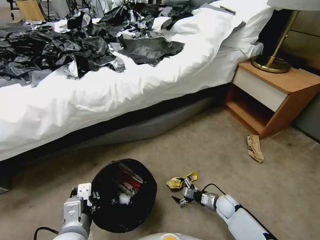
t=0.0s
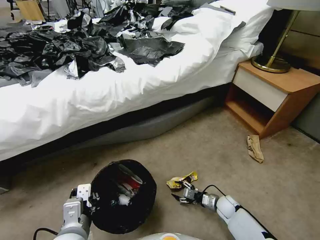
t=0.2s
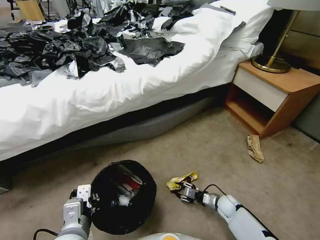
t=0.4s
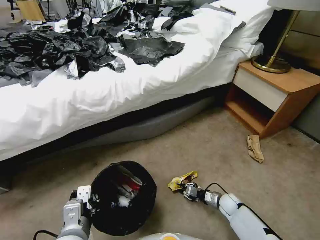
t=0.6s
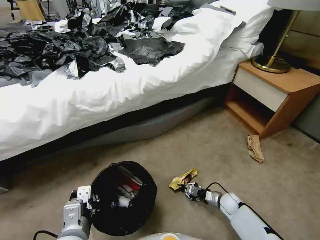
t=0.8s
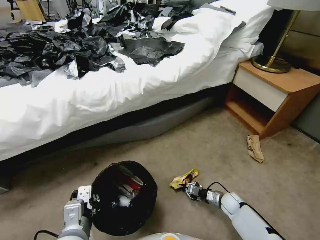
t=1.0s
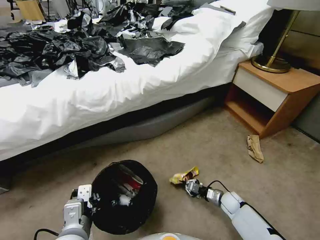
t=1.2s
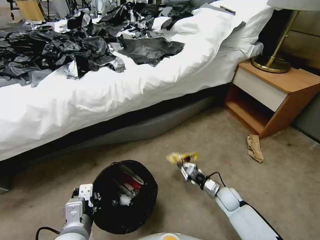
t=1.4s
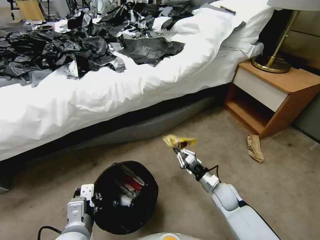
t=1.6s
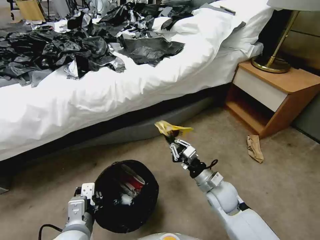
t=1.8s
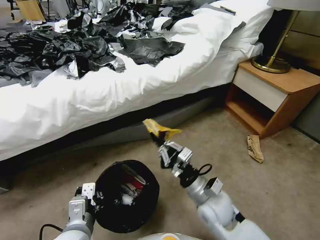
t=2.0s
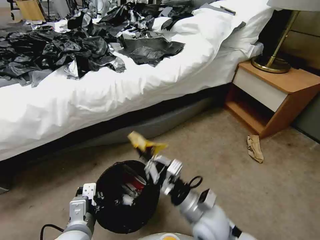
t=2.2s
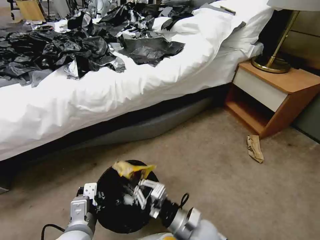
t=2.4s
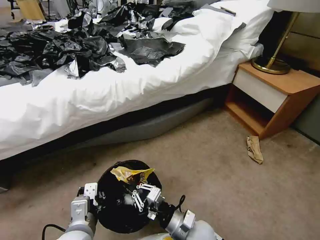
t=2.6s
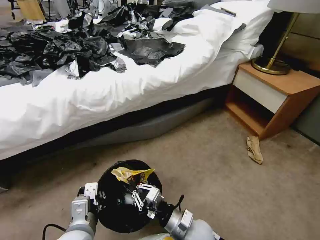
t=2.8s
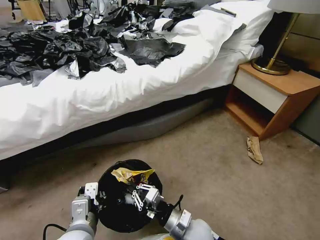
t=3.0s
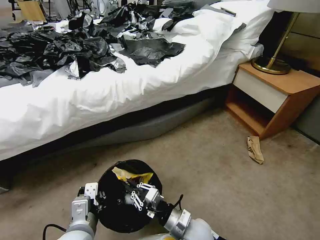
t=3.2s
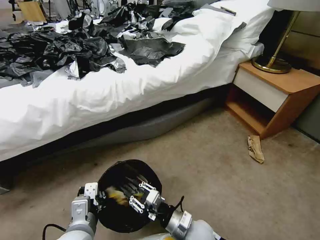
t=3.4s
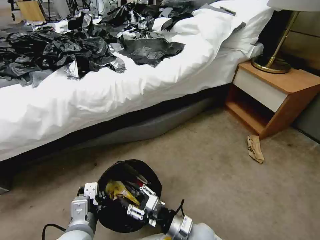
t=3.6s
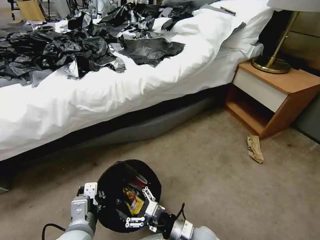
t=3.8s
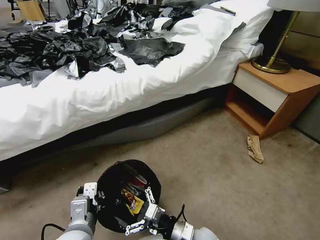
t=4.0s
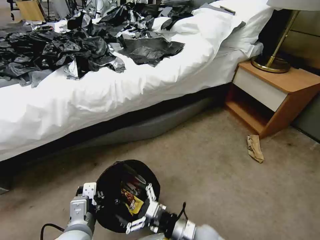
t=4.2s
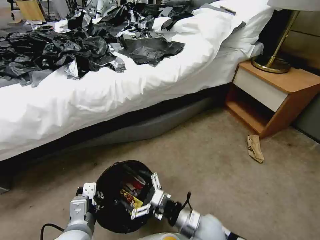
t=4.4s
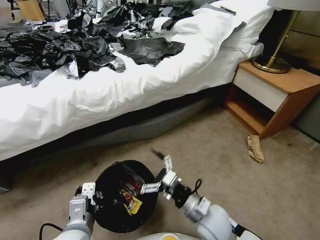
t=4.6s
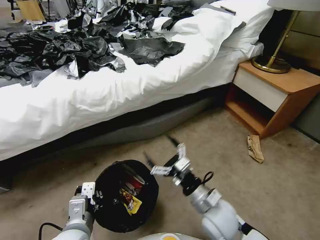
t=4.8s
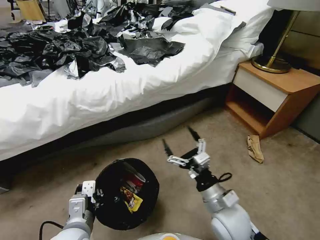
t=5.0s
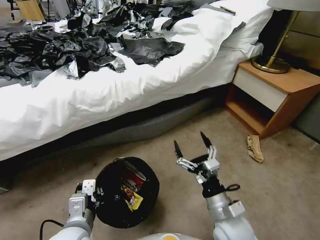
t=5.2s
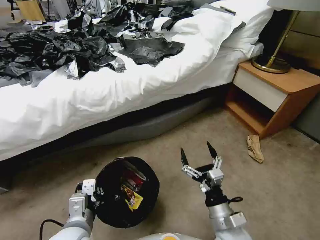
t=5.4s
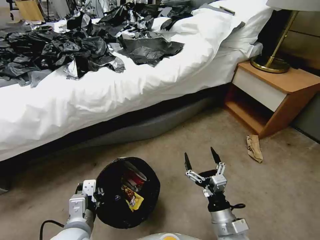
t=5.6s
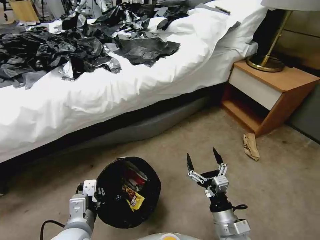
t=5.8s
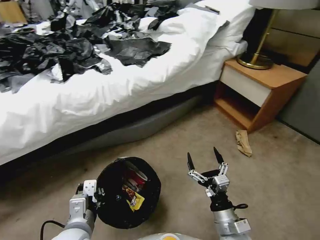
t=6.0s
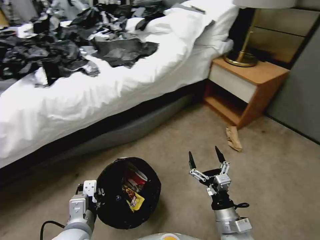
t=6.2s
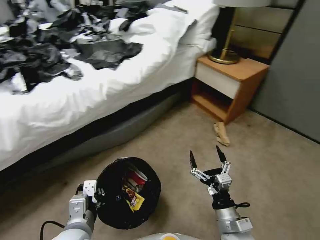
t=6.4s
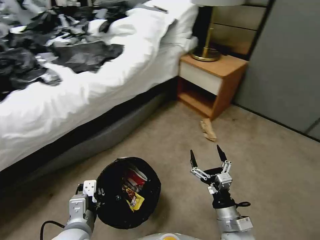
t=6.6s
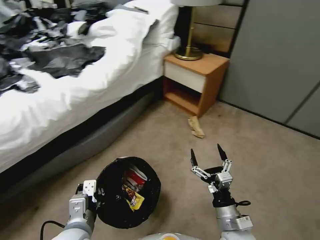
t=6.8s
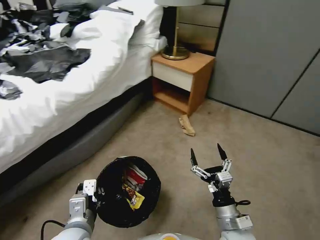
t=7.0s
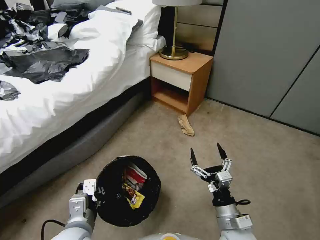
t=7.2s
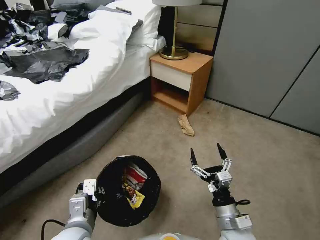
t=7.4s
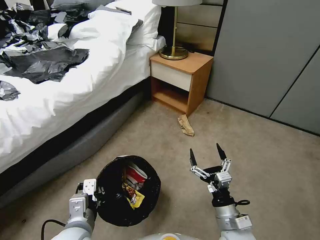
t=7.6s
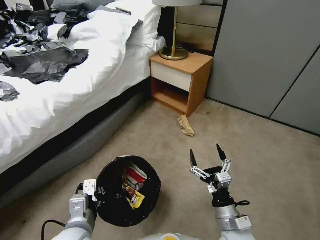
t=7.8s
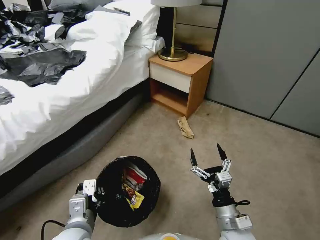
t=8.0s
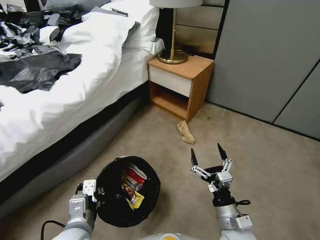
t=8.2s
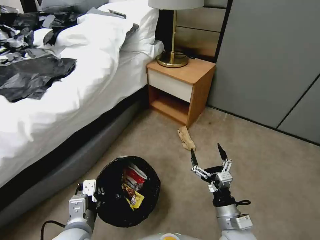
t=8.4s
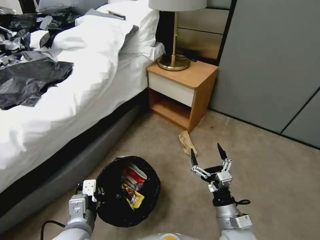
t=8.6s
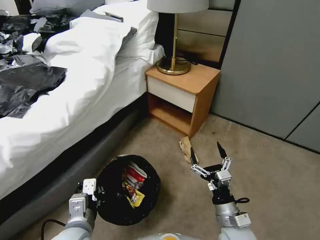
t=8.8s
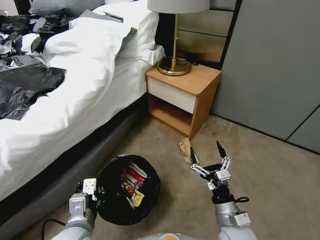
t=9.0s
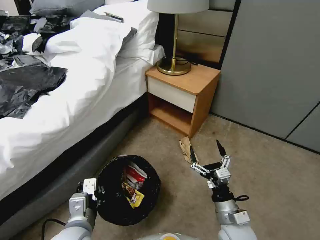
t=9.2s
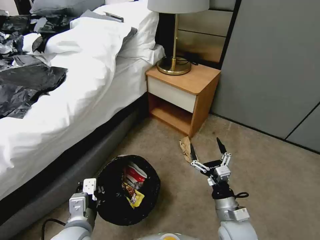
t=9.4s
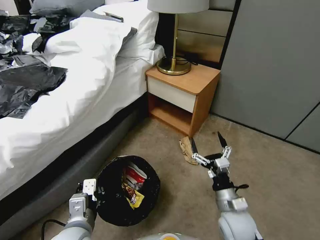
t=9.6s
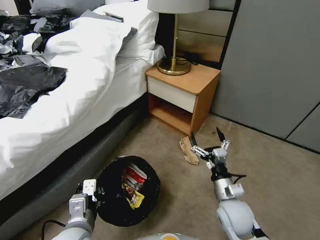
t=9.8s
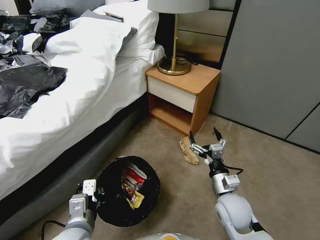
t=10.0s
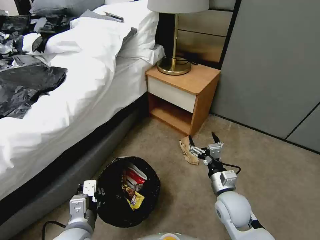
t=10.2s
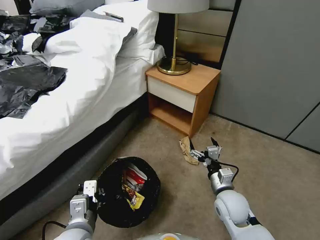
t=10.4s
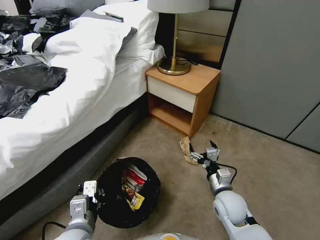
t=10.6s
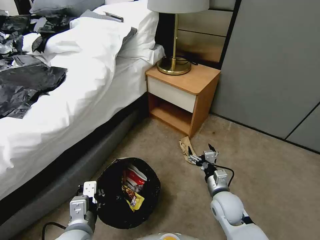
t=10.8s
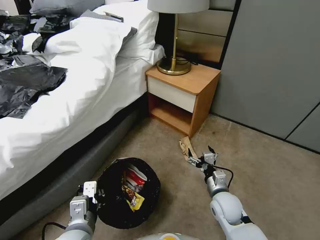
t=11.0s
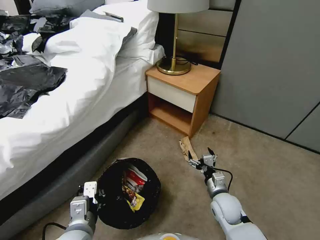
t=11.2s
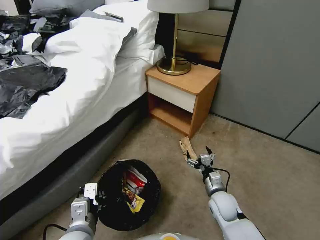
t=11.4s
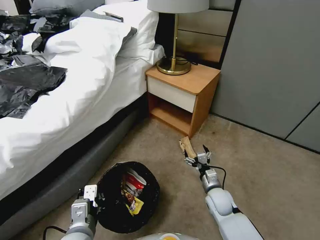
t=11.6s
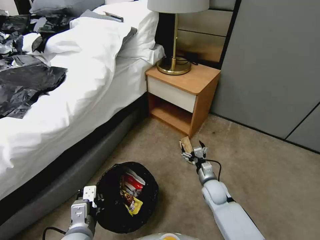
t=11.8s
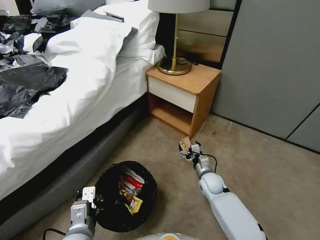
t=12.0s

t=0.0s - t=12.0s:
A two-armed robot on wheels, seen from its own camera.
Task of the whole recording: Pick up the trash bin, then pick up the garbage from the floor and place it into the trash bin.
t=0.0s - t=1.6s: The right gripper travels upward by approximately 10 cm, and closes up.
t=1.6s - t=3.0s: The right gripper travels to the left, backward and upward by approximately 20 cm.
t=3.0s - t=4.4s: The right gripper shifts by roughly 5 cm, and opens.
t=4.4s - t=6.0s: The right gripper shifts some 5 cm to the right.
t=9.0s - t=10.4s: The right gripper is displaced forward by about 10 cm.
t=10.4s - t=12.0s: The right gripper travels downward and forward by about 15 cm.

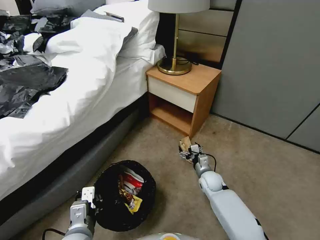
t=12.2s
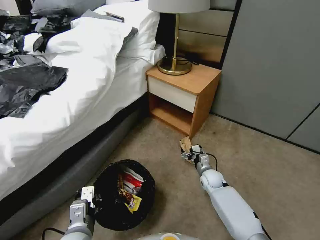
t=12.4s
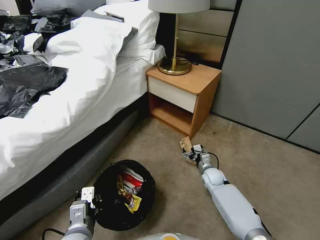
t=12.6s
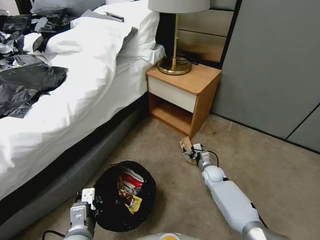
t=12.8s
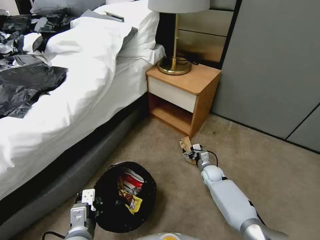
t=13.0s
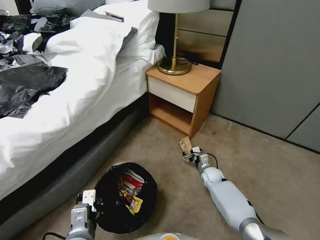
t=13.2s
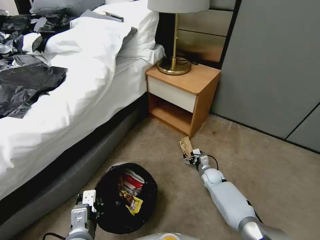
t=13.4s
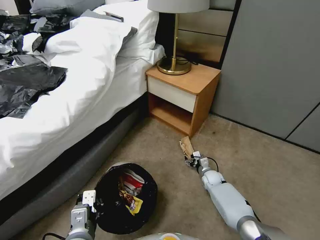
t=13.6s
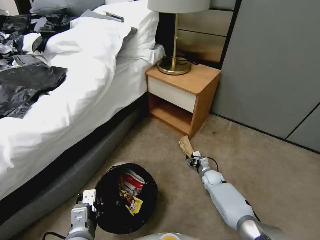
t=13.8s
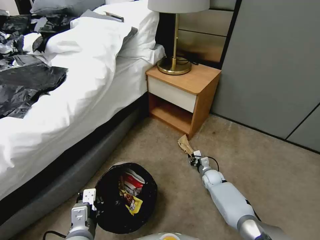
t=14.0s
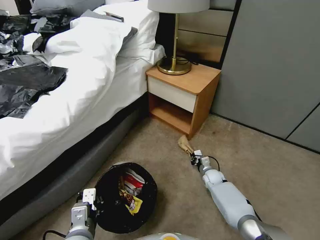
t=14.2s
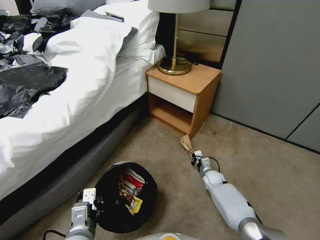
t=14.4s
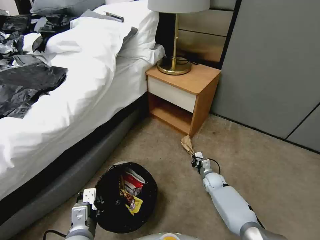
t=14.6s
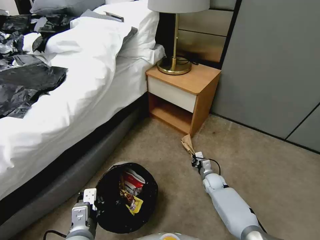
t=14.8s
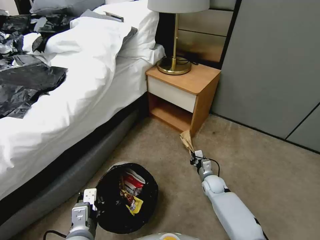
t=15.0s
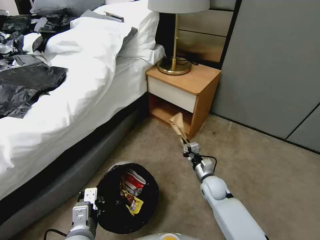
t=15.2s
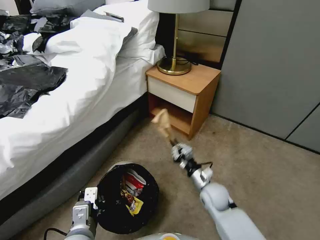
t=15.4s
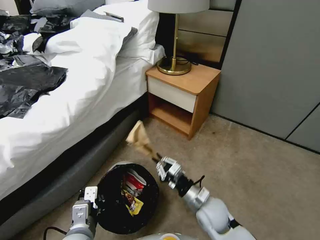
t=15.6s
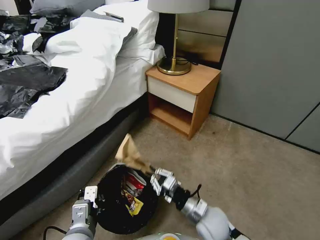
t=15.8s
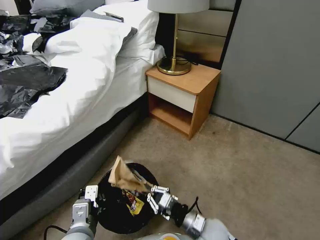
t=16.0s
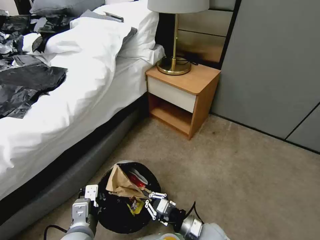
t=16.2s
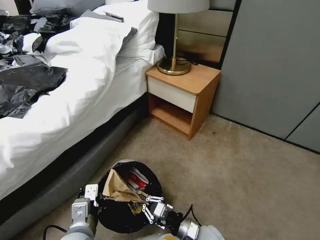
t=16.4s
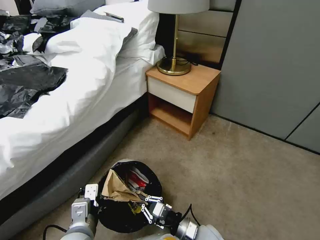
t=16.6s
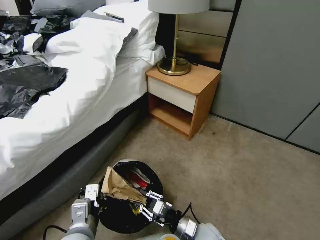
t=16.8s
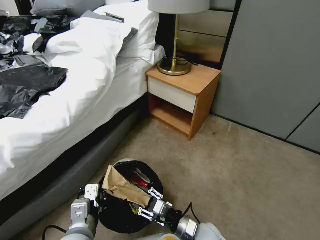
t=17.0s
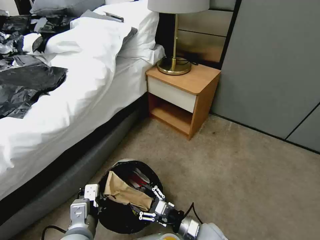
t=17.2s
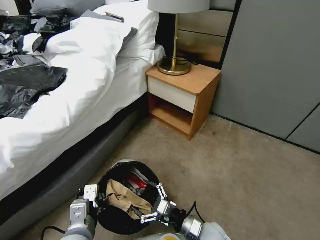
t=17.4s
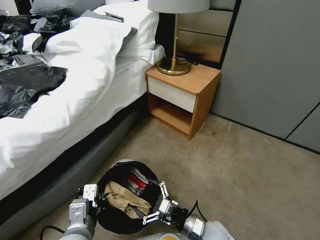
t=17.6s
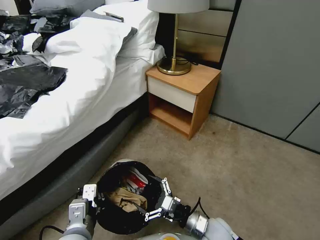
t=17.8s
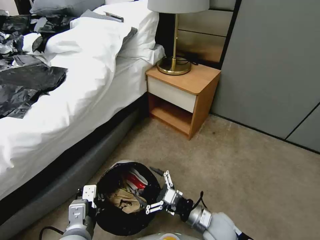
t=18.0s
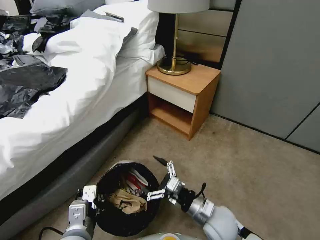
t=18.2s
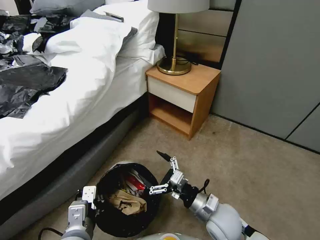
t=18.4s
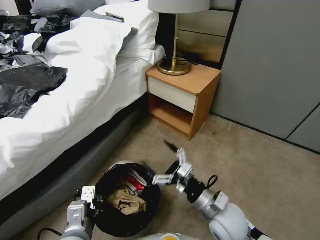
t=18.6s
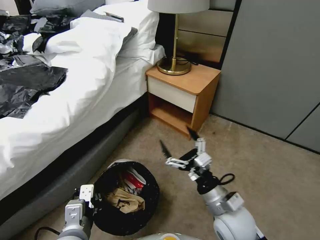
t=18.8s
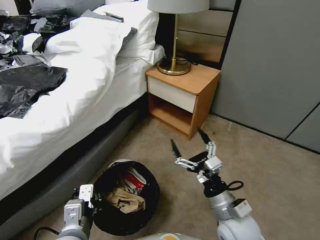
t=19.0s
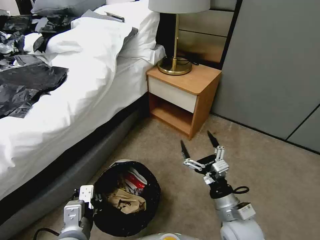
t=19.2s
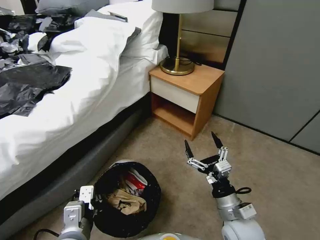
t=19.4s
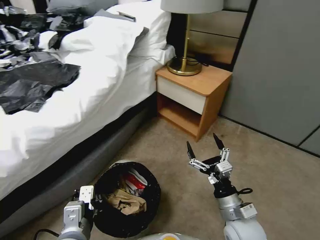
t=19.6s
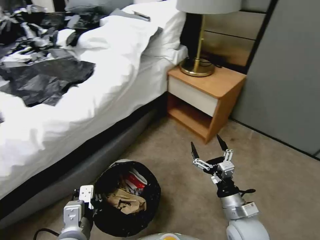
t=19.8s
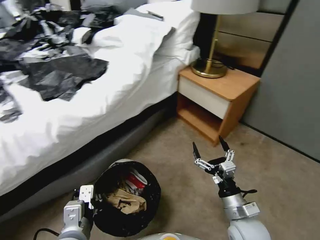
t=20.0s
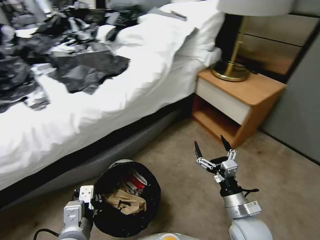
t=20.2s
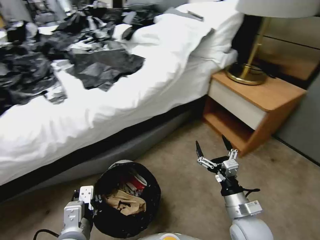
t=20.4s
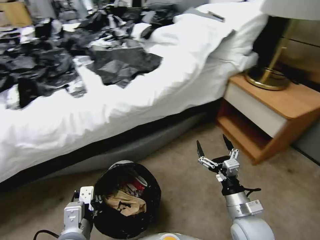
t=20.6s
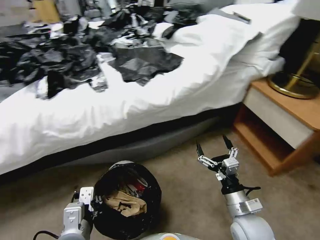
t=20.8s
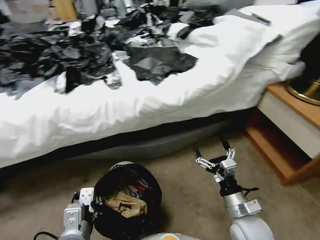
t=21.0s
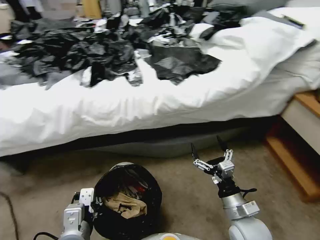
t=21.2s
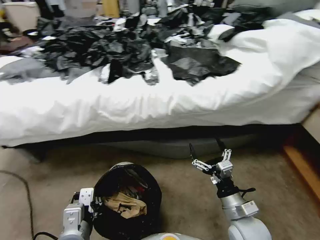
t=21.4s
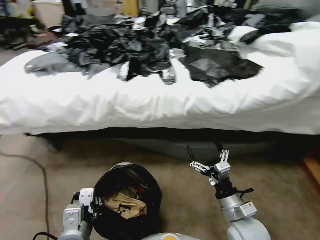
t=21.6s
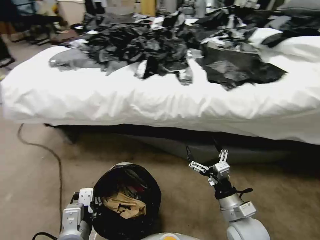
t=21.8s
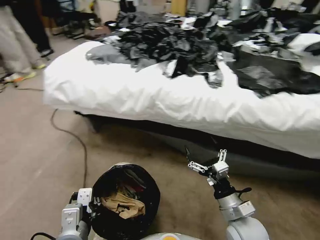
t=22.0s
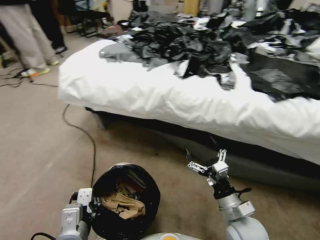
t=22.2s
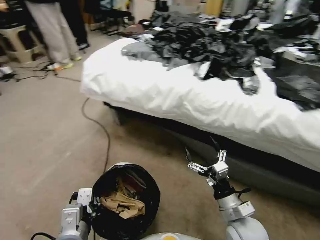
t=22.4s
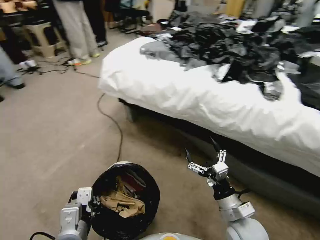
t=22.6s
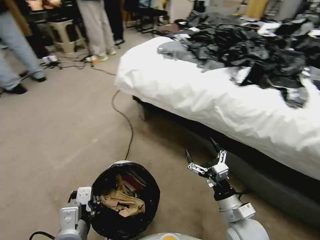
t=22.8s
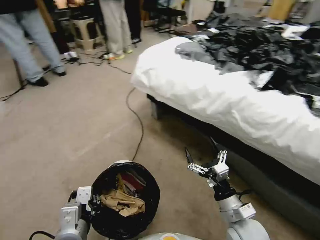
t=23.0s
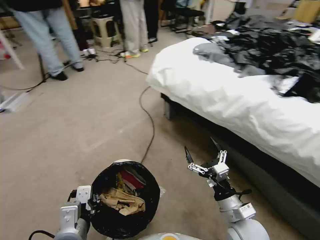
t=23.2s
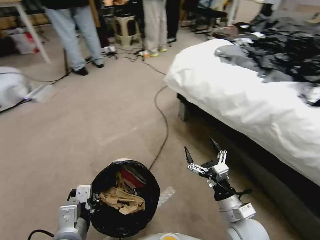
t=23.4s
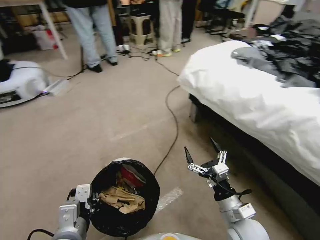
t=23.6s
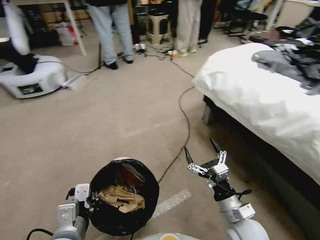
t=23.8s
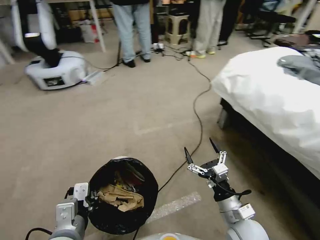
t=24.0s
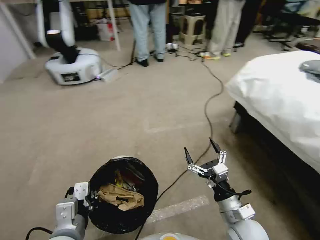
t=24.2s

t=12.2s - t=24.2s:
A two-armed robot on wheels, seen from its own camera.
Task of the whole recording: Pick up the trash bin, then pick up the garbage from the floor and place it into the trash bin.
t=12.2s - t=13.8s: The right gripper is displaced downward by some 5 cm, and closes its fingers.
t=13.8s - t=15.2s: The right gripper goes about 10 cm upward and backward, and closes up.
t=15.2s - t=16.6s: The right gripper travels backward by about 15 cm.
t=16.6s - t=18.2s: The right gripper travels upward by some 5 cm, and opens.
t=18.2s - t=19.8s: The right gripper heads to the right, covering about 5 cm, and reaches about 10 cm upward, then returns.
